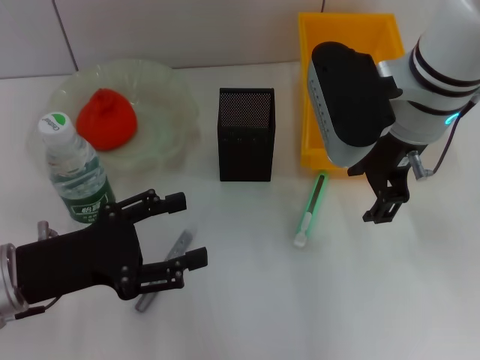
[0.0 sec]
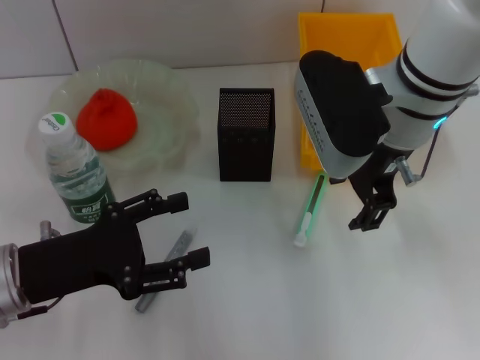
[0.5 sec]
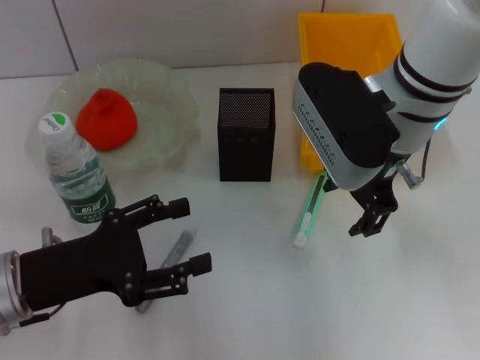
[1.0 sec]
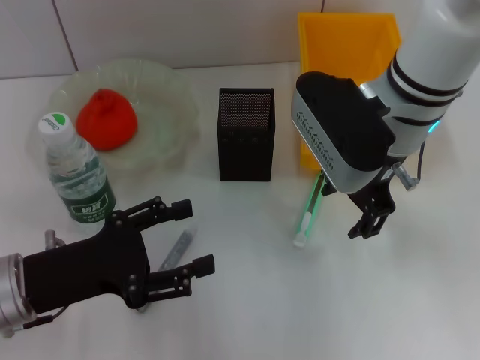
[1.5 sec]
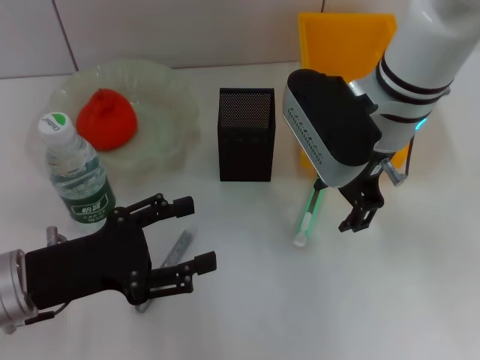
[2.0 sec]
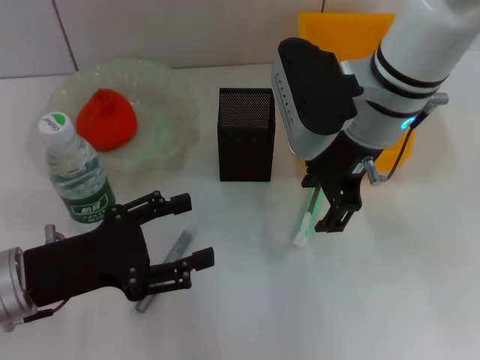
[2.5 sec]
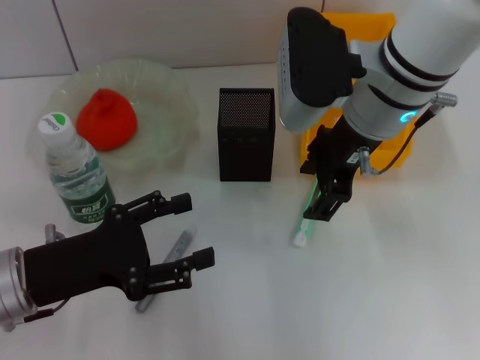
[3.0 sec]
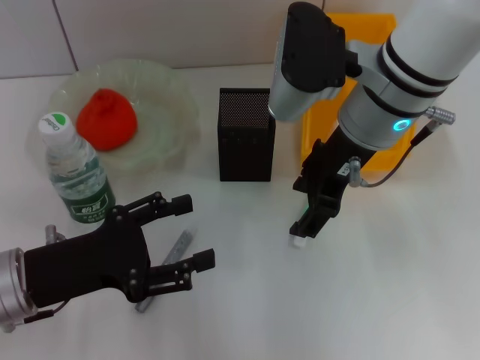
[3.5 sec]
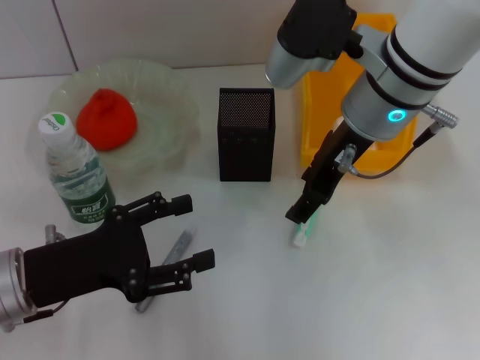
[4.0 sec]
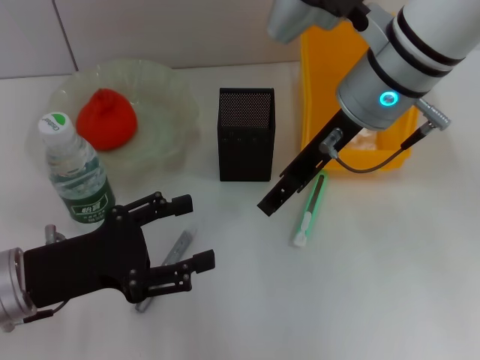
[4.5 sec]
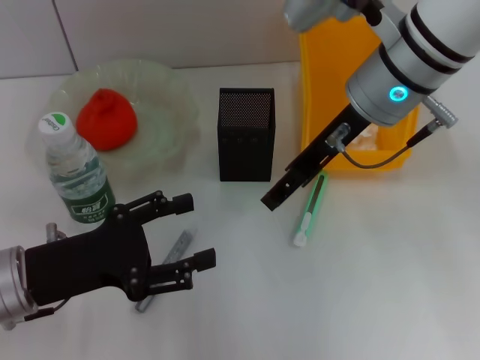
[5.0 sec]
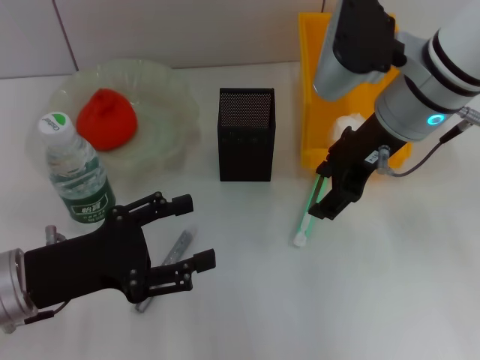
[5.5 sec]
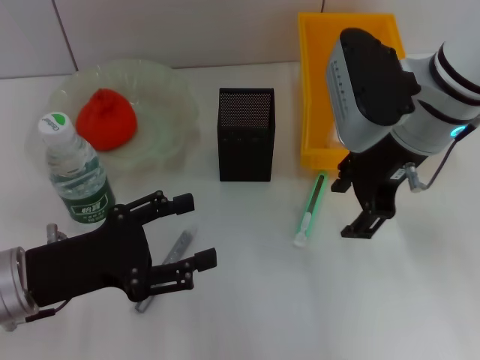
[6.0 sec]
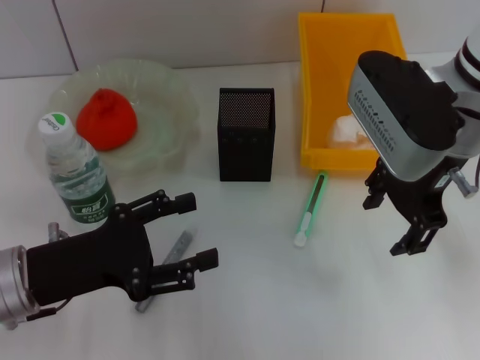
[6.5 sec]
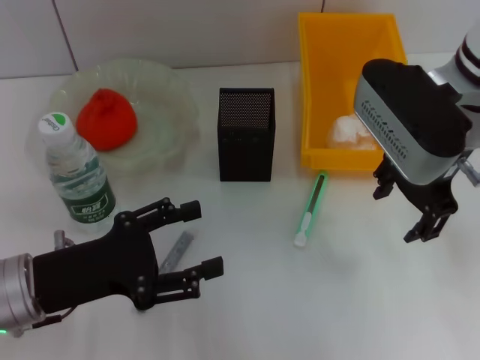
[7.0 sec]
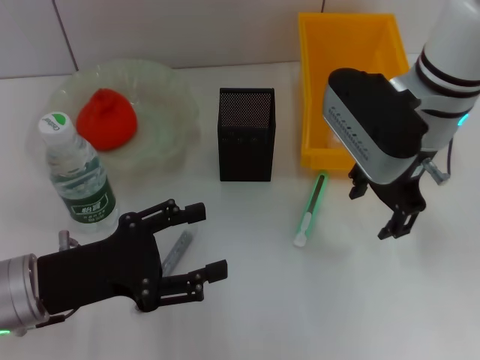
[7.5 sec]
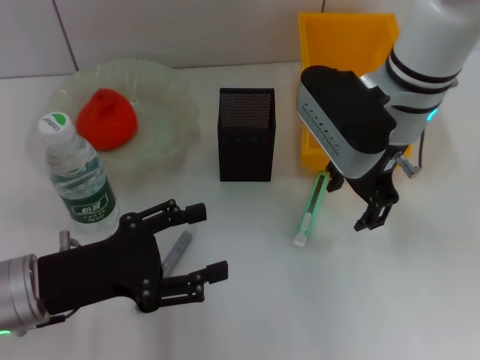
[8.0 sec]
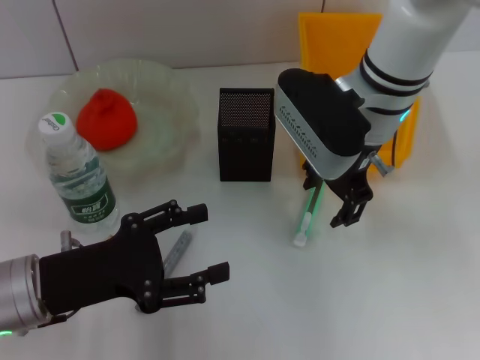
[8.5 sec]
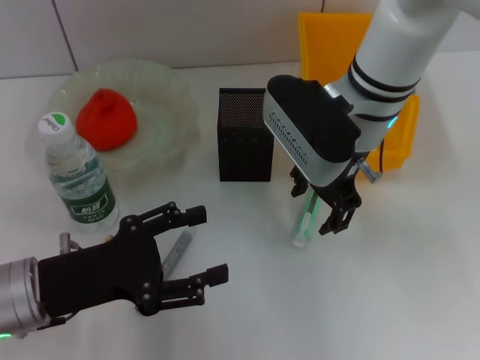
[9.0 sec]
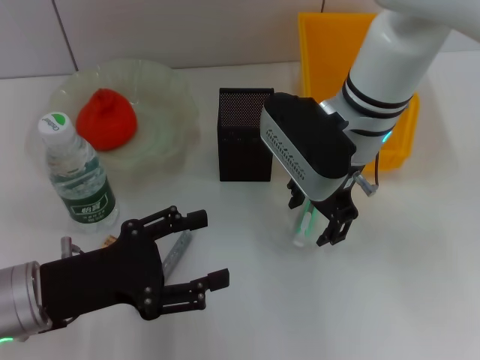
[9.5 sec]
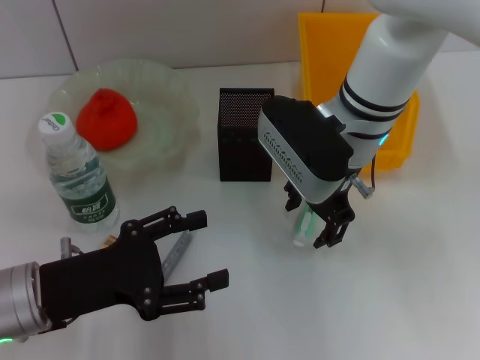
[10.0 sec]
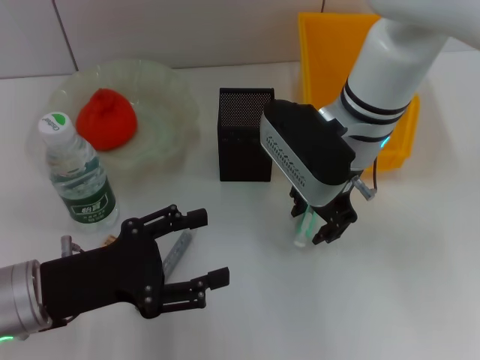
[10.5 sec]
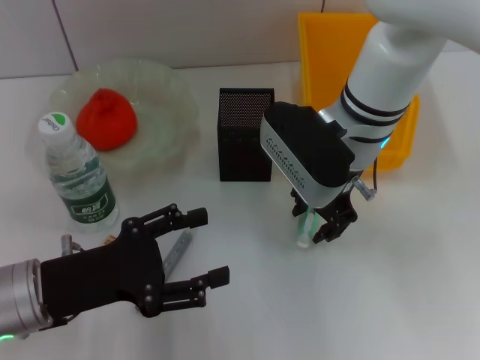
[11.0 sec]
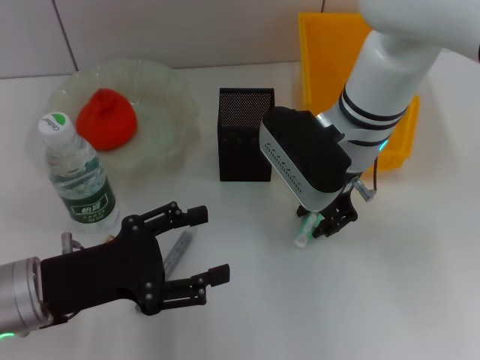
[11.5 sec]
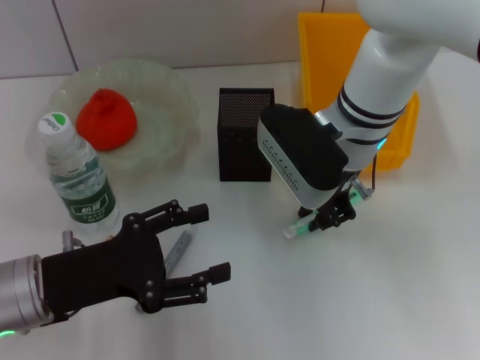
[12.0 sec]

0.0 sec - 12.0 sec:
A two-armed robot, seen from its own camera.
Step, 0.0 sec - 12.0 sec: Grab the blue utility knife with the right hand.
0.0 sec - 2.0 sec: The grippers make only small movements.
8.0 sec - 10.0 sec: The grippers make only small movements.
10.0 sec - 12.0 sec: The right gripper closes its fingers.

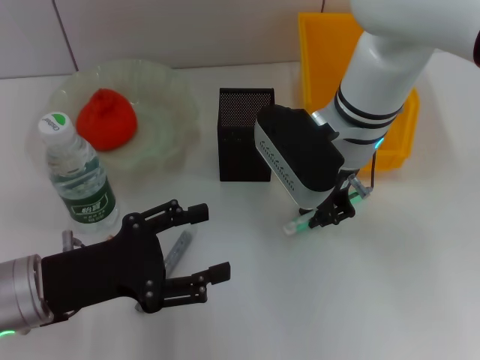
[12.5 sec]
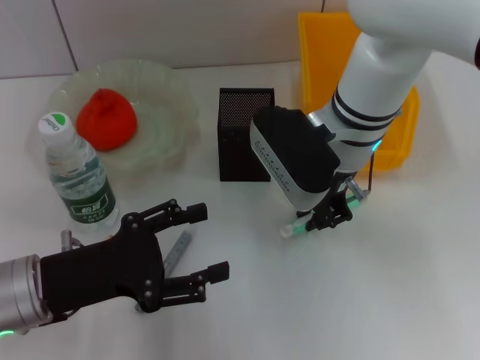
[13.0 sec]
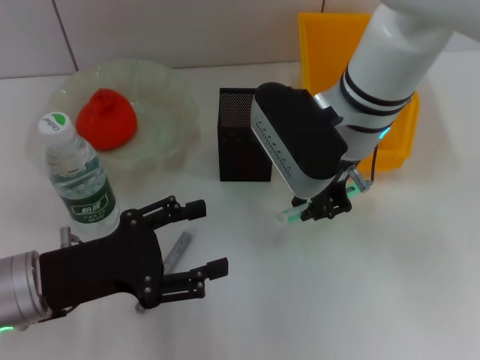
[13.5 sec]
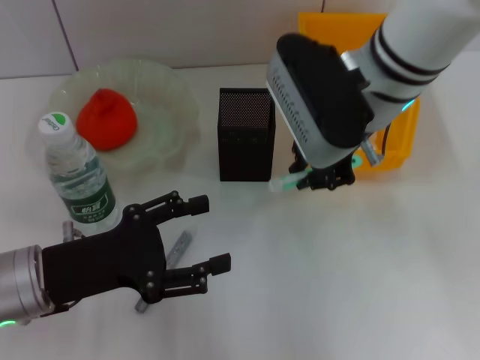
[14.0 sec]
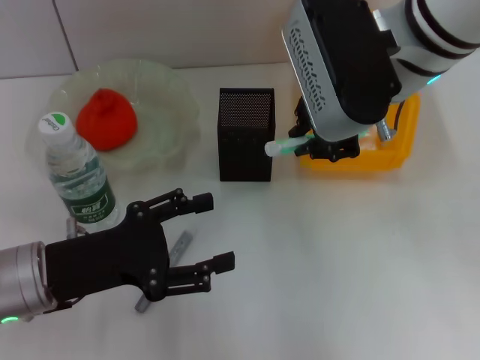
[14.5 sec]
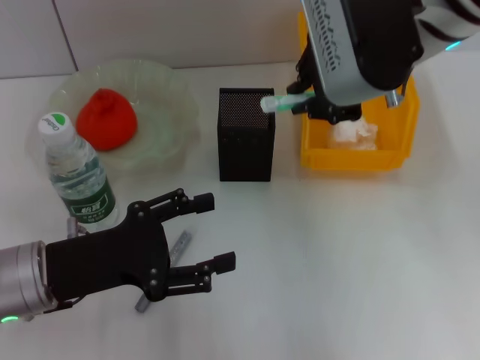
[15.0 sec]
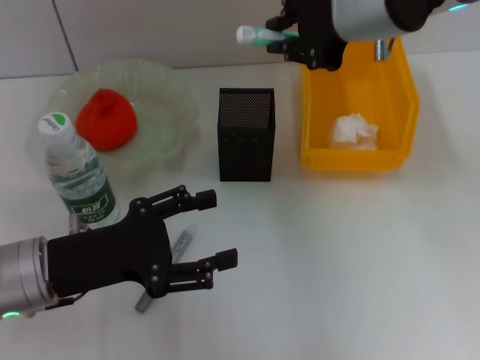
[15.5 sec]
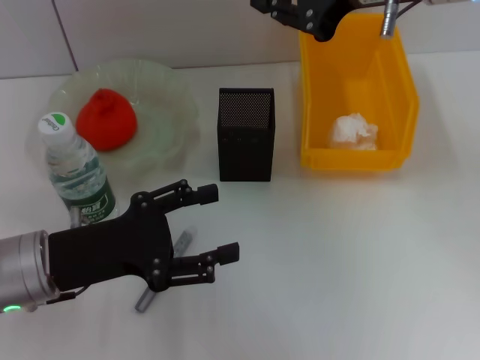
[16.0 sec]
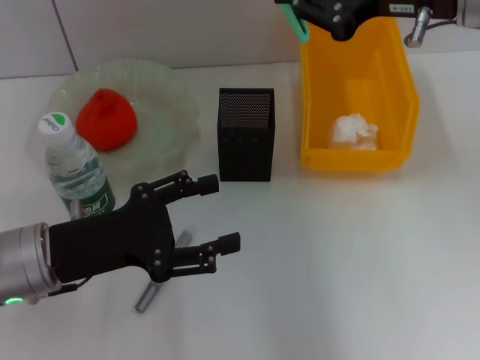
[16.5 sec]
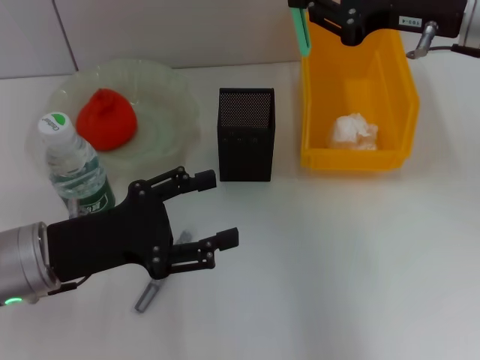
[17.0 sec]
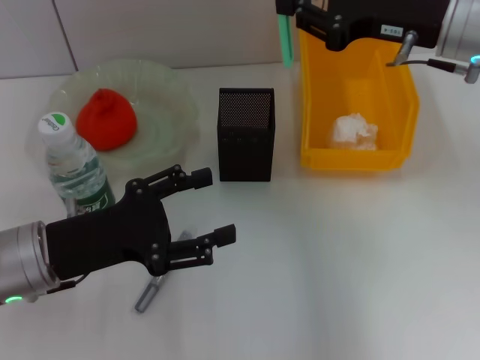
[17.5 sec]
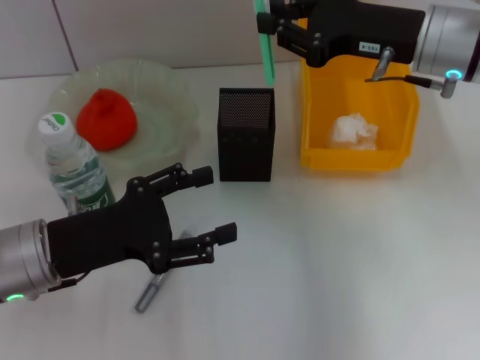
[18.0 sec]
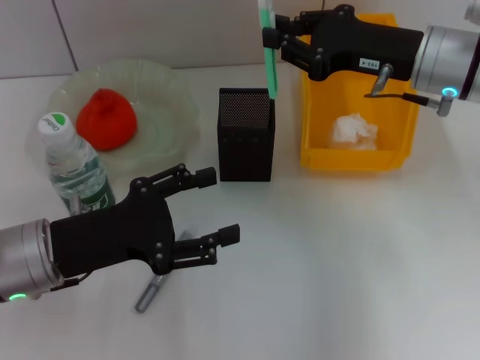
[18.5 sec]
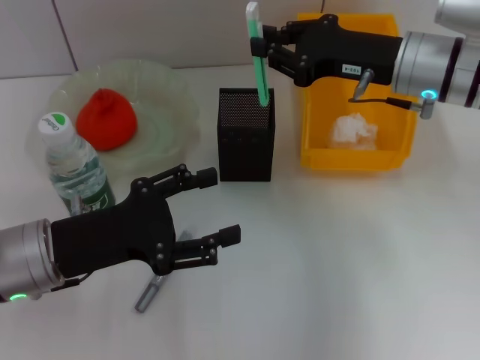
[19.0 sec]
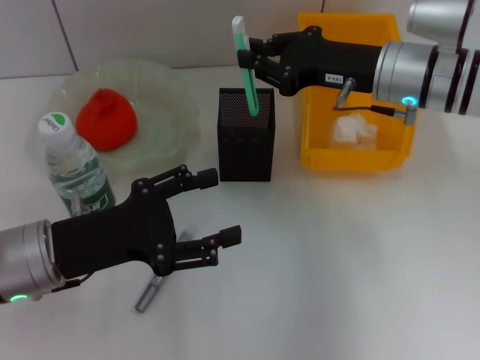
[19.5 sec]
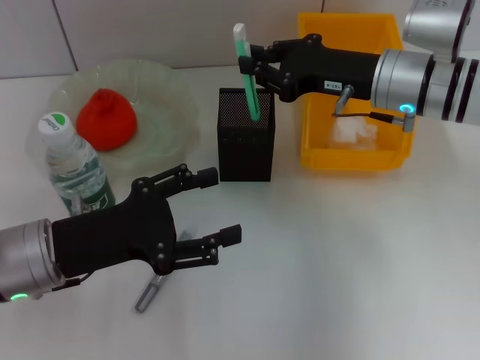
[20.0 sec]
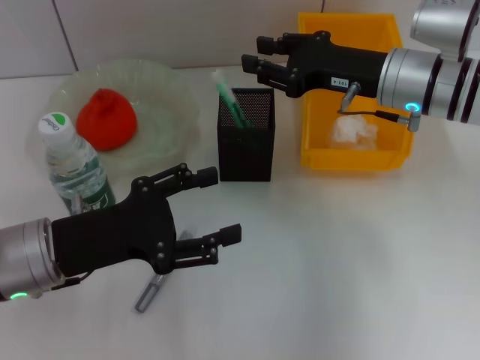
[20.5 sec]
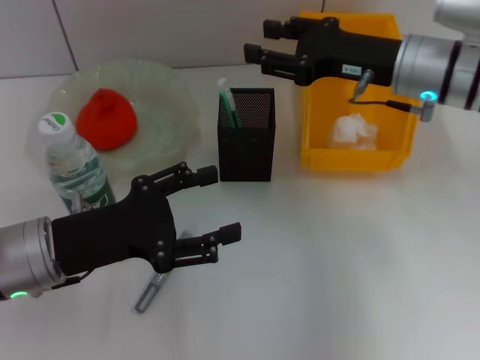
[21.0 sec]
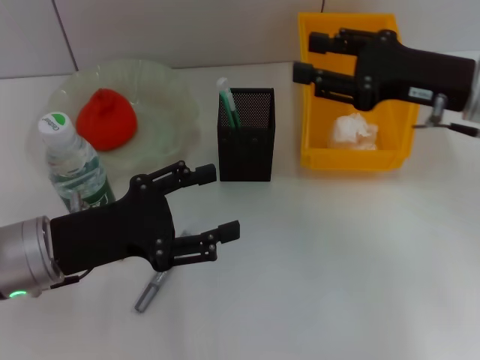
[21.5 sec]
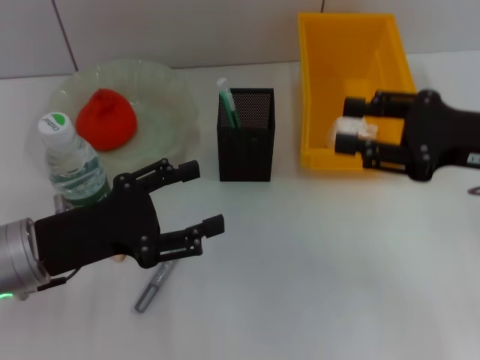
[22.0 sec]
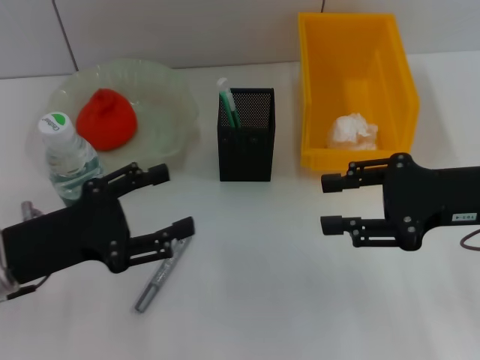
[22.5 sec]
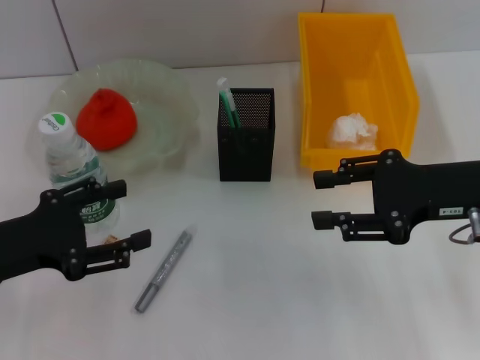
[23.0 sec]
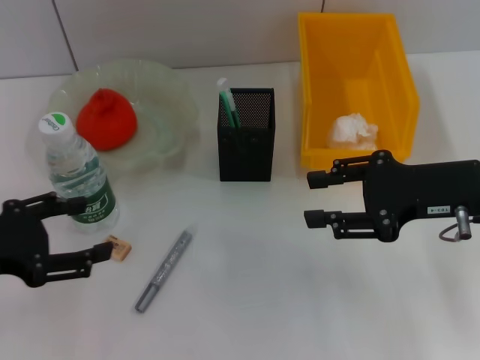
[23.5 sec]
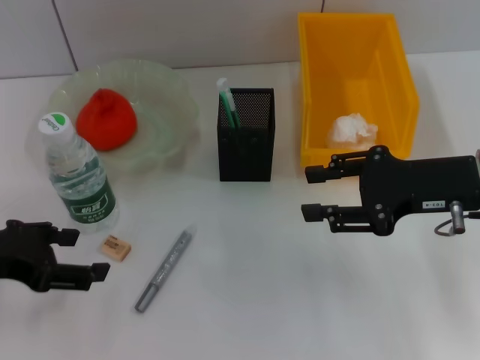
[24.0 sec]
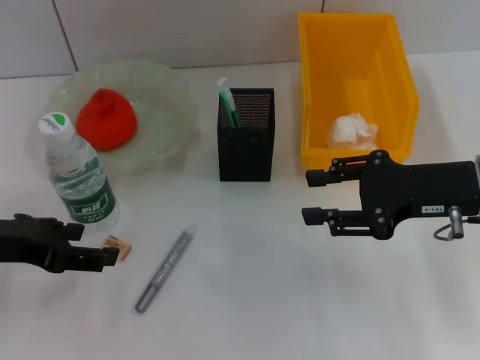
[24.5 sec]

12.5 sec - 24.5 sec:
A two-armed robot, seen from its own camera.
Step, 12.5 sec - 20.5 sec: Place the blue utility knife into the pen holder with the right hand.
12.5 sec - 14.5 sec: The right gripper goes roughly 10 cm upward.
14.5 sec - 16.5 sec: The right gripper goes approximately 10 cm to the right.
16.5 sec - 18.5 sec: The right gripper is displaced downward by some 10 cm.
18.5 sec - 20.5 sec: The grippers make only small movements.
20.5 sec - 22.5 sec: The right gripper heads backward and to the right, covering some 15 cm, and opens.
22.5 sec - 24.5 sec: The left gripper shifts approximately 5 cm upward.

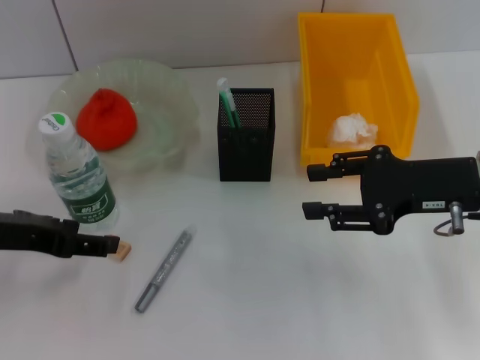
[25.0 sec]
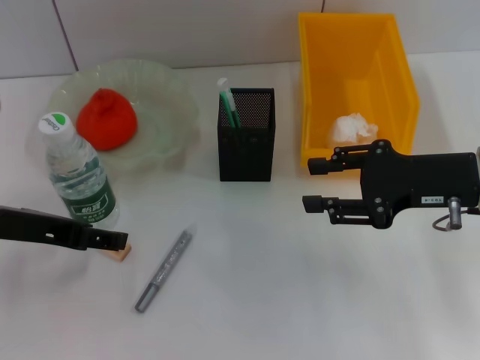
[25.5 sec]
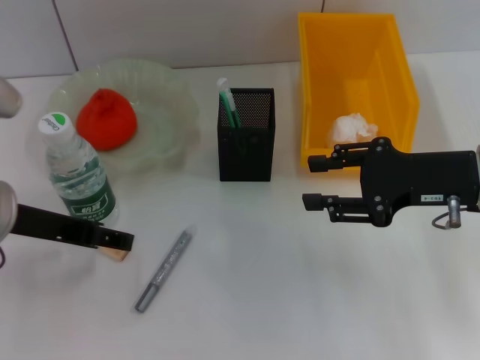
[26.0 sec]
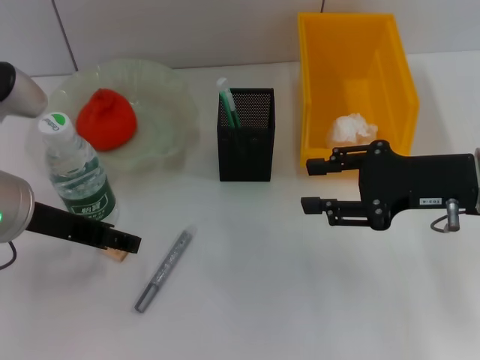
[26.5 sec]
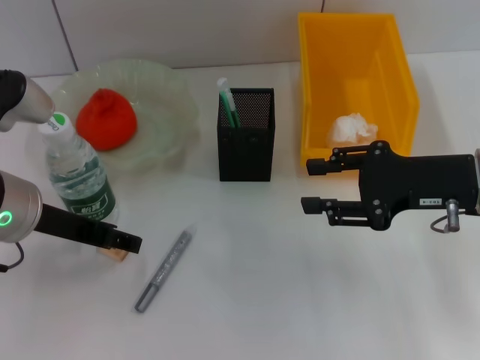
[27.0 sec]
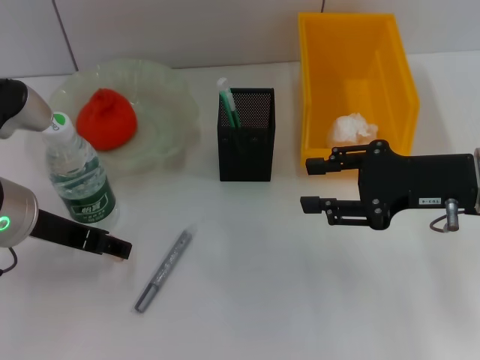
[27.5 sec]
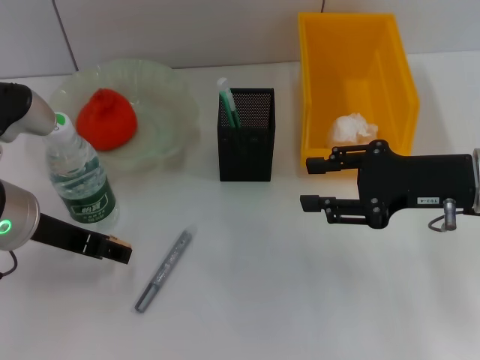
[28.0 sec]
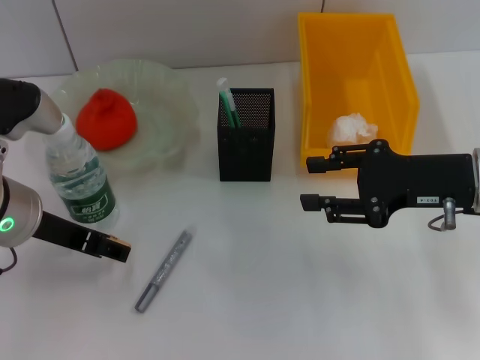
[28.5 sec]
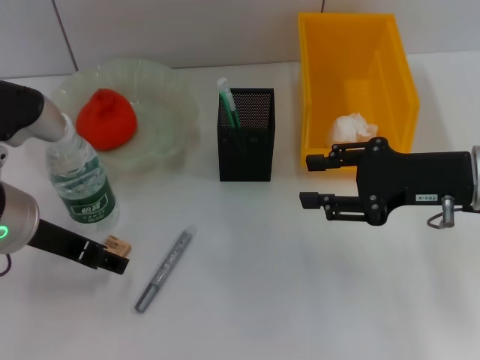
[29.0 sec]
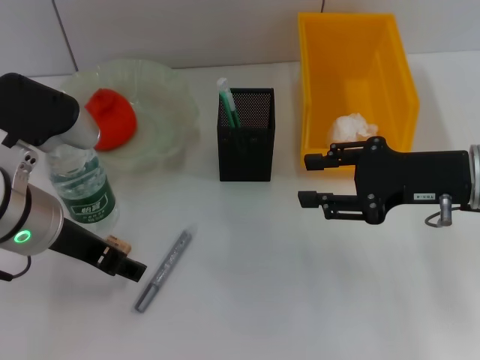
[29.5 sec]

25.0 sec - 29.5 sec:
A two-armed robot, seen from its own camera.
25.0 sec - 27.0 sec: The left gripper heads to the right, covering some 5 cm.
27.0 sec - 29.5 sec: There are only small adjustments of the grippers.
